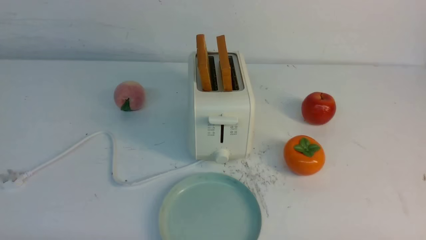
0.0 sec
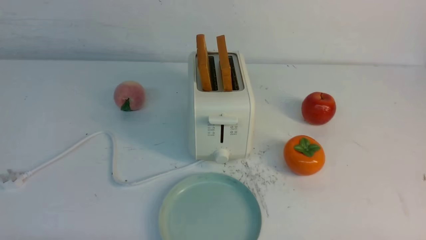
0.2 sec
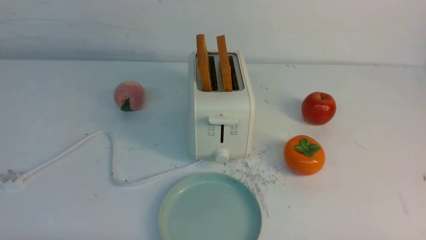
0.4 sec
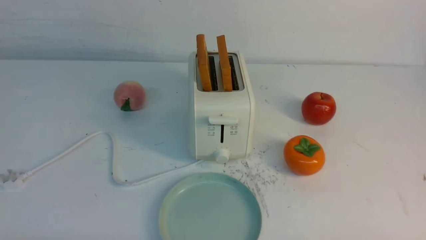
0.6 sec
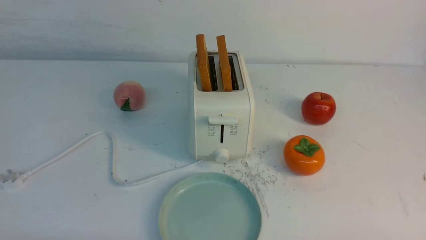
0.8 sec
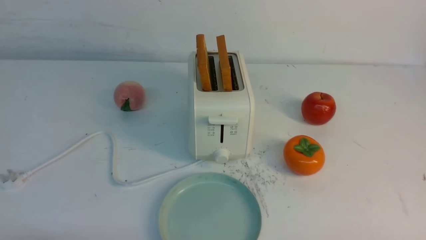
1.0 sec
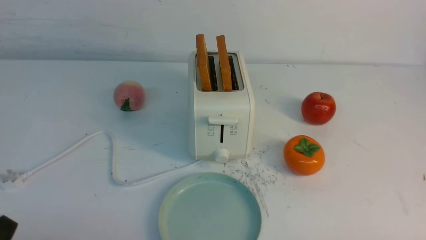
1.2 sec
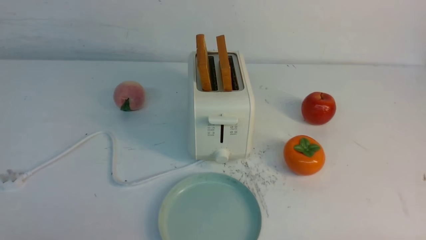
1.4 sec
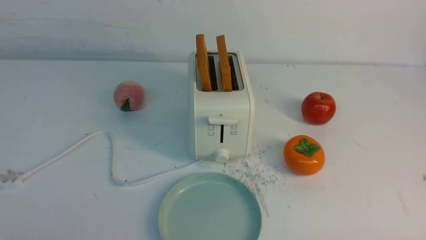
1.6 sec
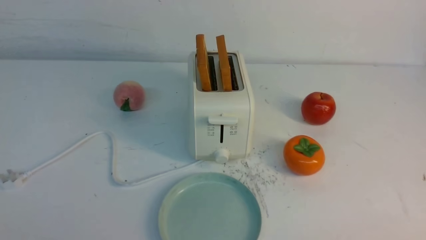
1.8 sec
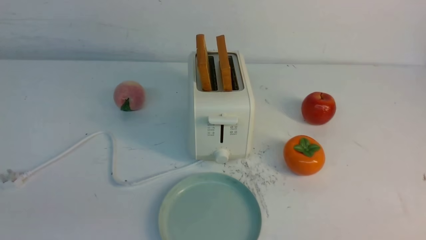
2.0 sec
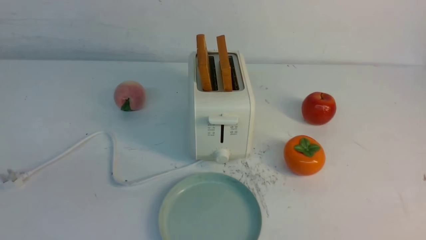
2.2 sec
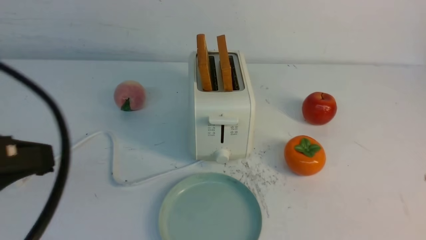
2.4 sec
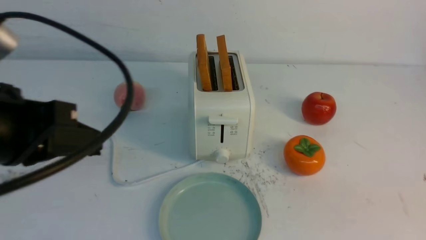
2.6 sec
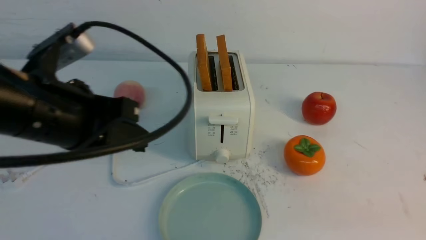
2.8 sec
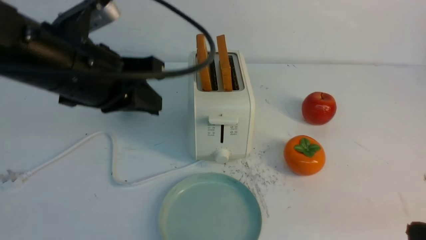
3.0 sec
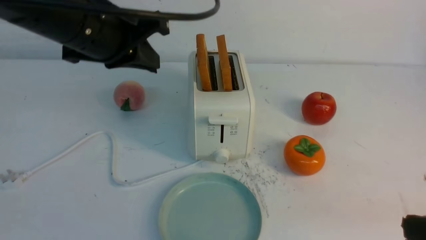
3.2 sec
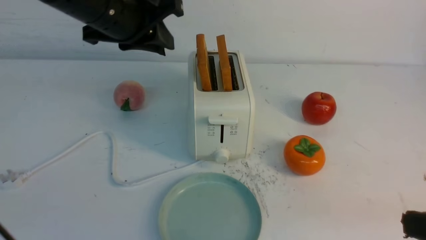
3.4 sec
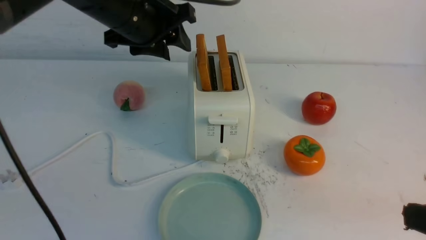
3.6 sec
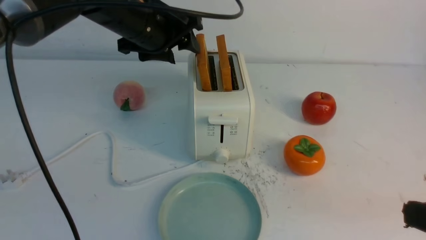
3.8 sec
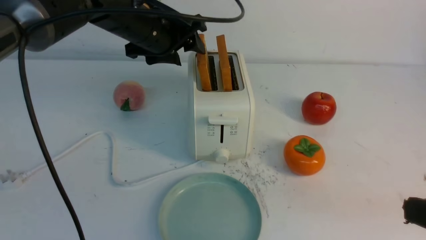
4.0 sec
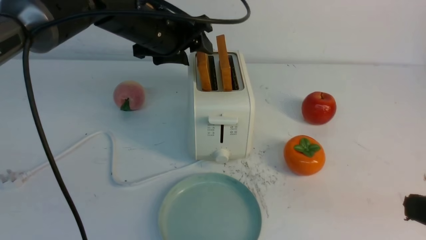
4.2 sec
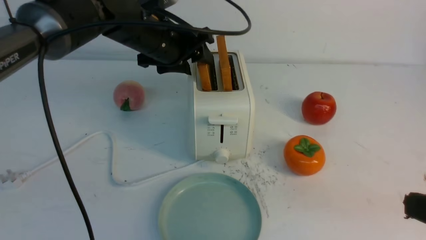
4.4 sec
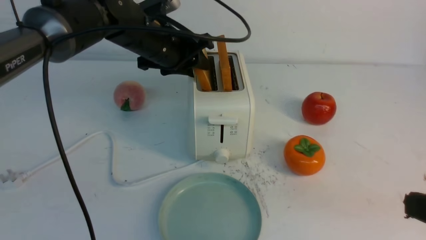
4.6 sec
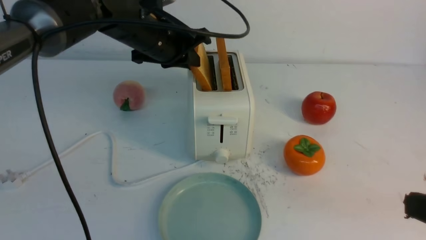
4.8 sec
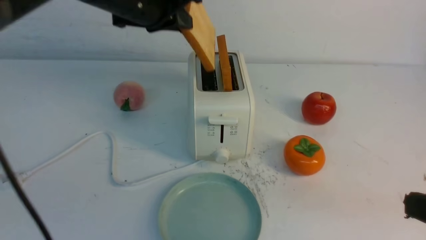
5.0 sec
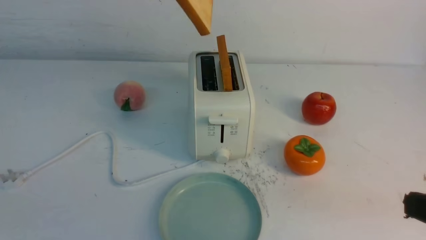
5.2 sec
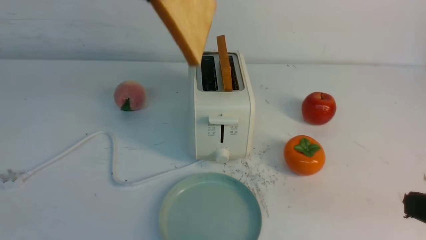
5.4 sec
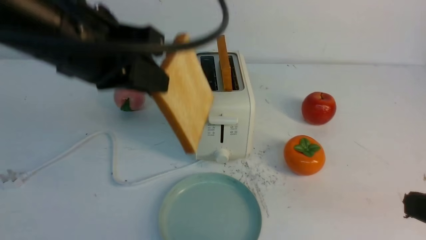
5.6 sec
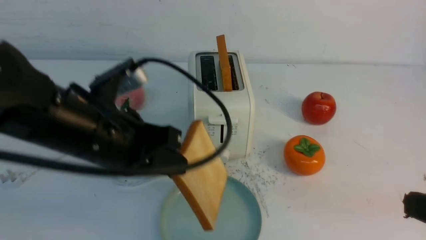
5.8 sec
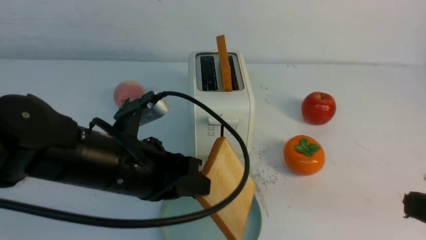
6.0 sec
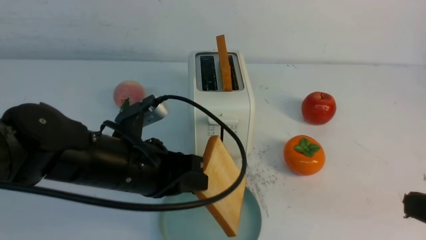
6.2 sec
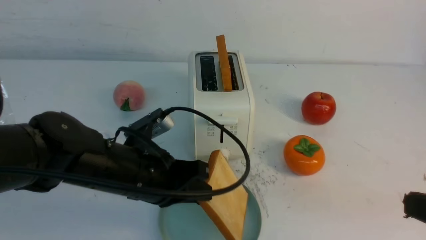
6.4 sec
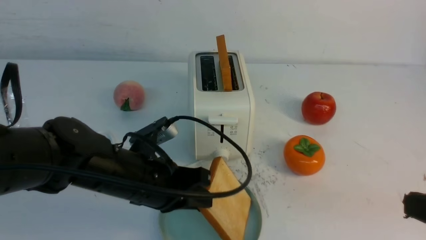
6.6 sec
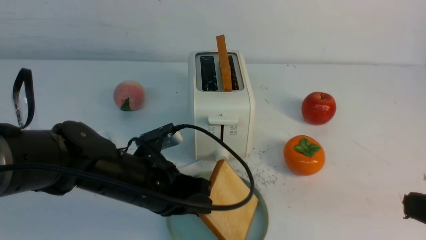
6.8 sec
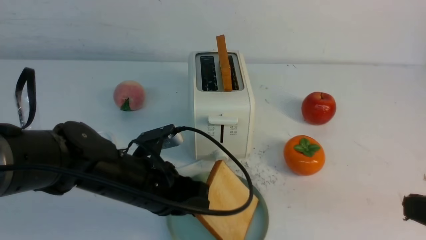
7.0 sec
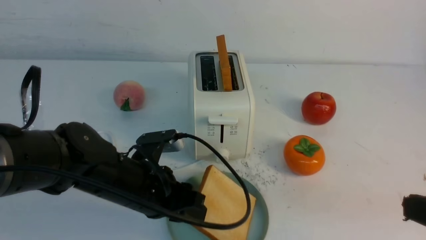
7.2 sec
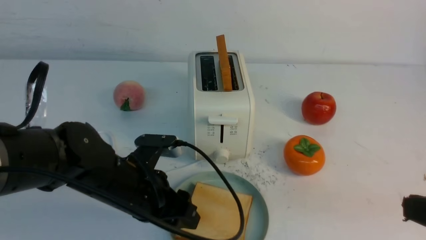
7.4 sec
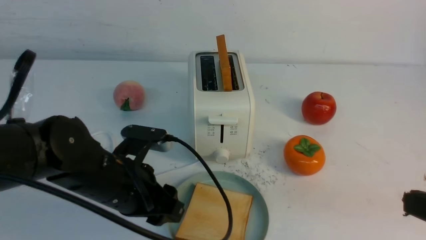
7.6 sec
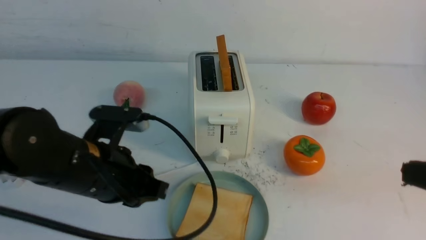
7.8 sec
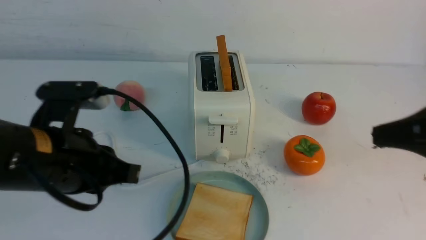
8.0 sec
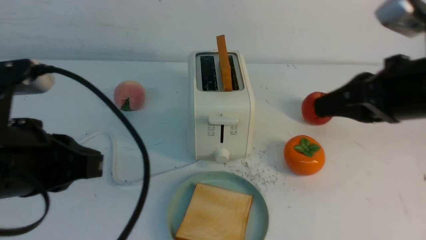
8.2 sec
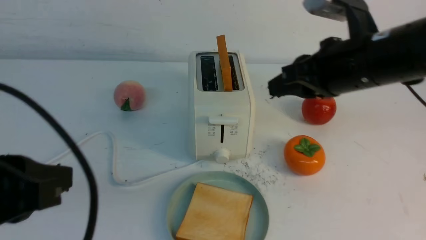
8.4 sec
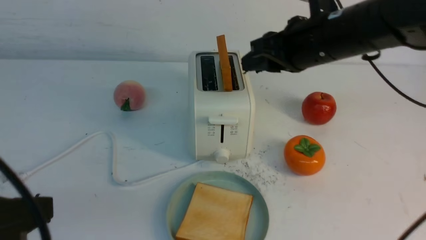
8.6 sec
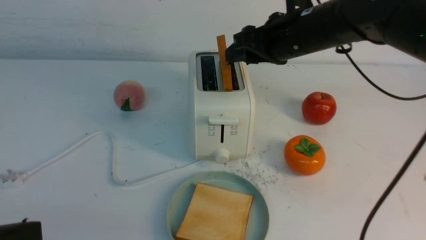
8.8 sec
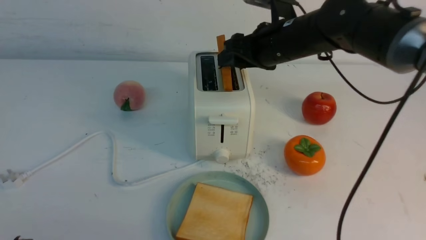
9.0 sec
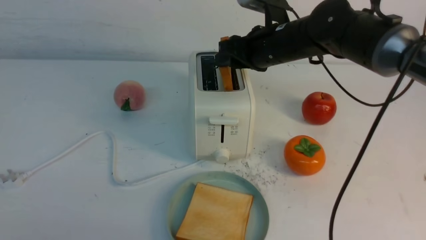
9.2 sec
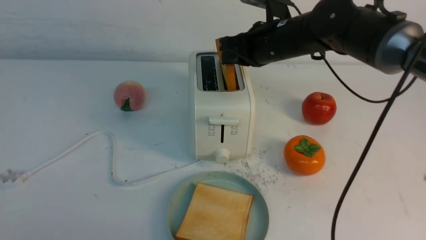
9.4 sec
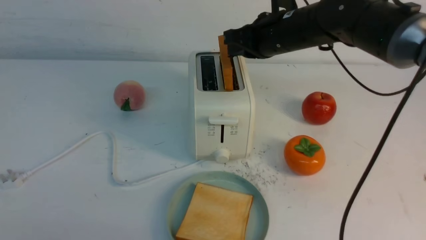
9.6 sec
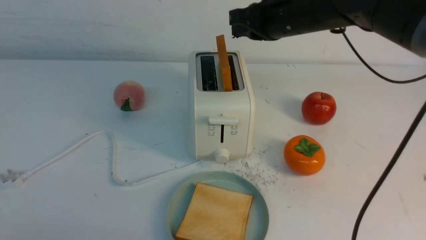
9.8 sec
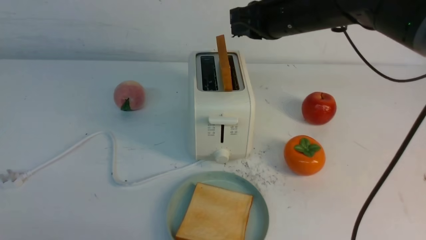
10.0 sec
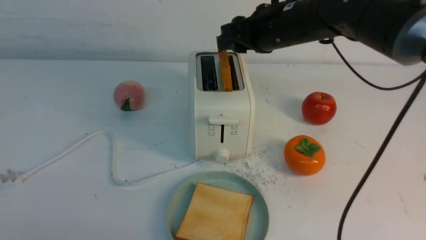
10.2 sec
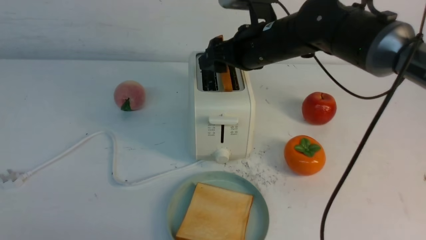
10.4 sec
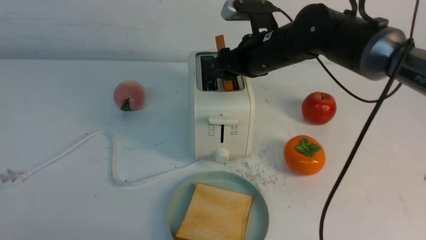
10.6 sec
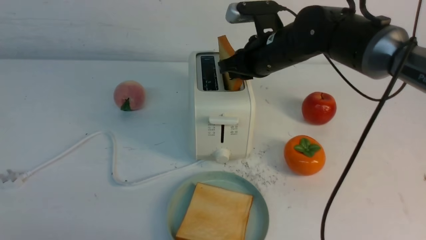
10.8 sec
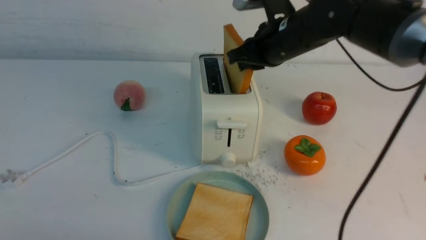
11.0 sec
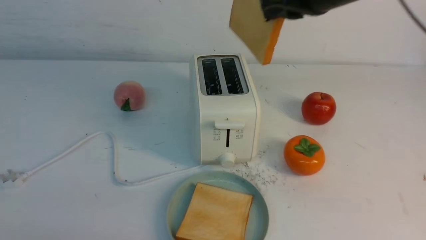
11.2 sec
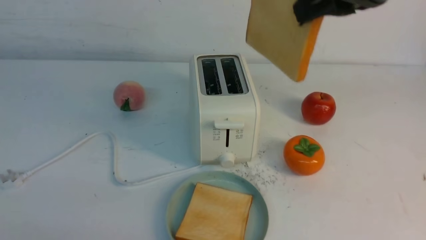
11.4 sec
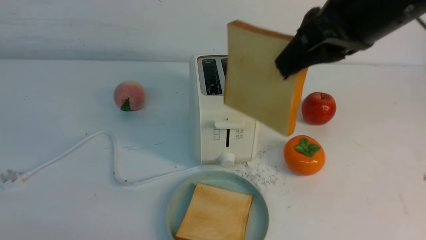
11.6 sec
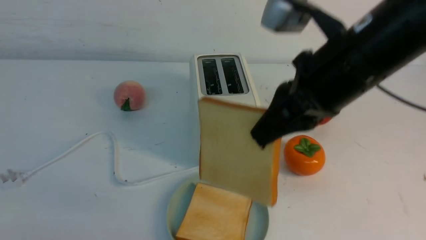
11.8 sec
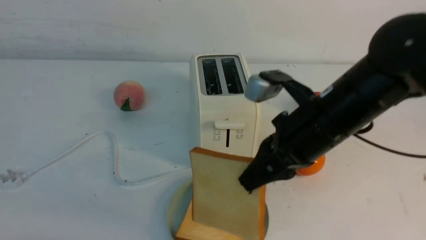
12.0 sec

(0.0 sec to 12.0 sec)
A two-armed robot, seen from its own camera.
Task of the whole recording: take toasted bread from bread machine on white table place on plate.
Step, 0.0 sec - 4.8 sec: use the left arm to take out a slice of bread.
Step, 5.2 sec - 7.6 sec: use the left arm to put a slice of bread into the empty plate.
Step, 7.8 sec - 11.2 sec: use the right arm to take out a slice of bread.
1.6 sec - 3.0 sec: The right gripper goes about 15 cm upward, and closes its fingers; the left gripper heads forward, upward and to the right, covering some 30 cm.
3.0 sec - 4.4 sec: The left gripper is displaced forward by roughly 15 cm, and opens.
4.4 sec - 6.0 sec: The left gripper moves backward, approximately 20 cm, and closes up.
6.0 sec - 7.6 sec: The left gripper opens its fingers.
7.6 sec - 9.0 sec: The right gripper moves forward and to the left, about 35 cm, and opens its fingers. The left gripper goes some 25 cm backward, to the left and upward, and closes its fingers.
9.0 sec - 10.4 sec: The right gripper closes, then opens again.
10.4 sec - 12.0 sec: The right gripper moves backward, about 15 cm, and closes up.

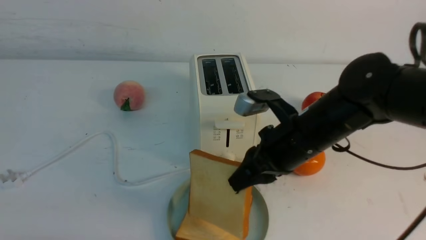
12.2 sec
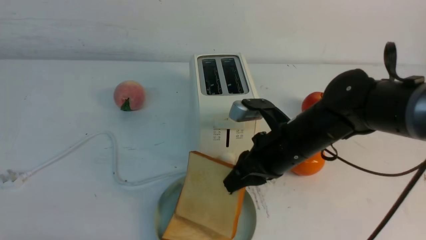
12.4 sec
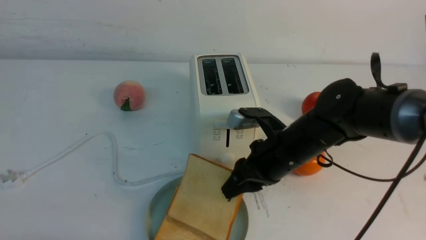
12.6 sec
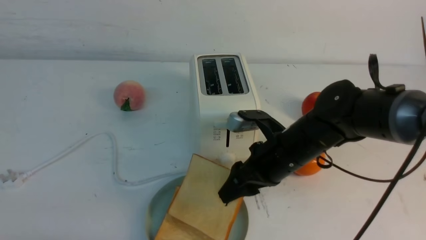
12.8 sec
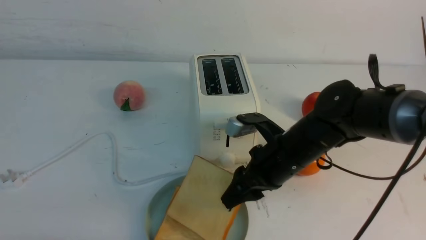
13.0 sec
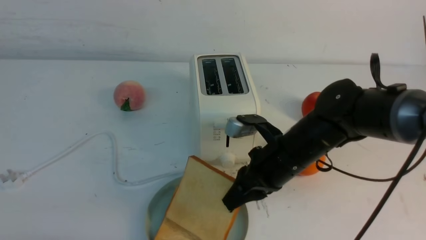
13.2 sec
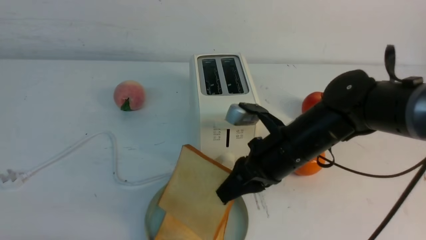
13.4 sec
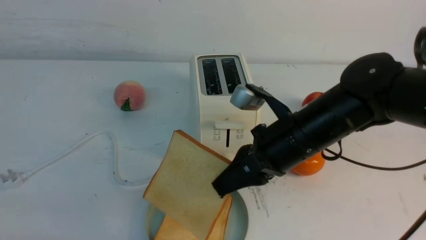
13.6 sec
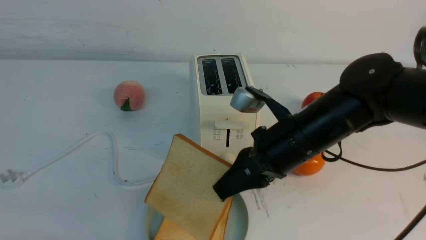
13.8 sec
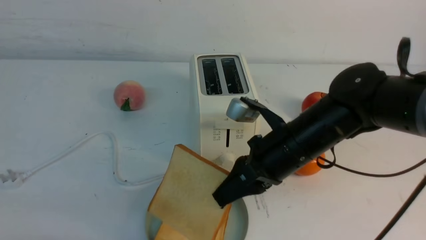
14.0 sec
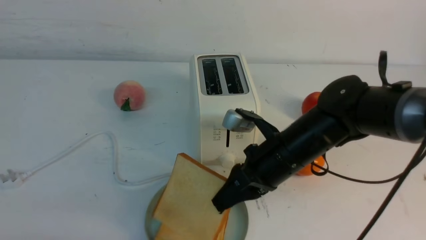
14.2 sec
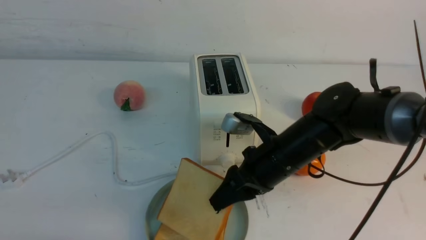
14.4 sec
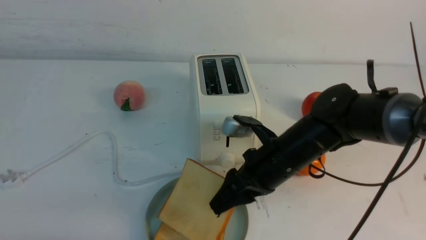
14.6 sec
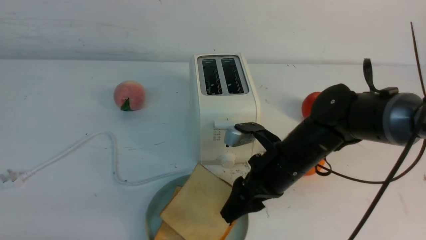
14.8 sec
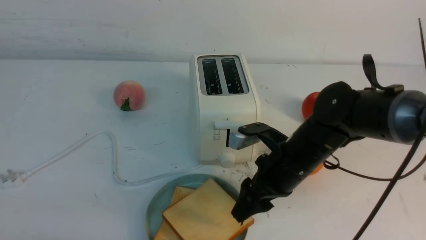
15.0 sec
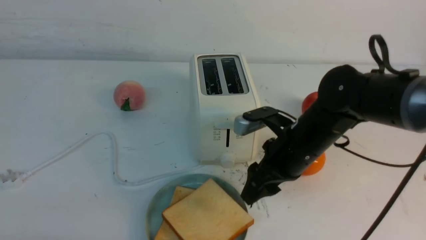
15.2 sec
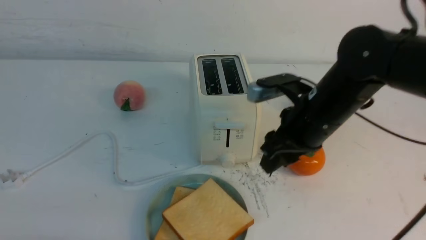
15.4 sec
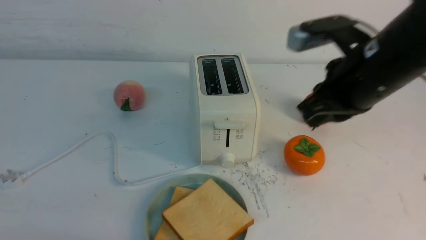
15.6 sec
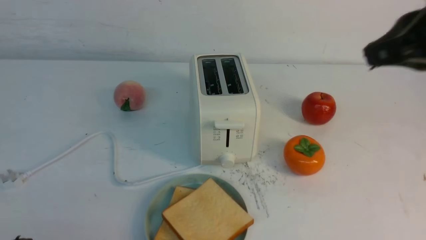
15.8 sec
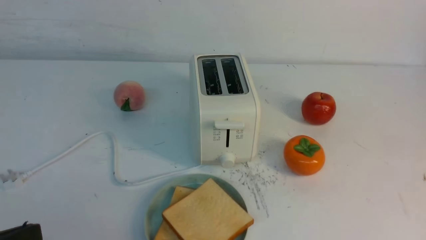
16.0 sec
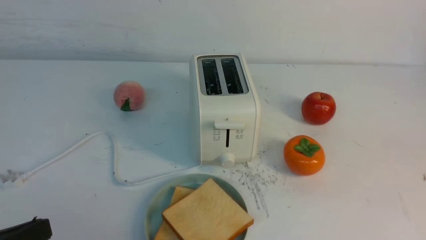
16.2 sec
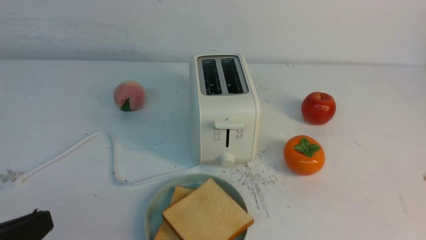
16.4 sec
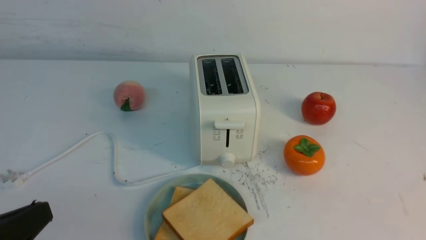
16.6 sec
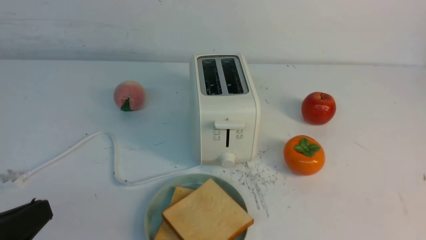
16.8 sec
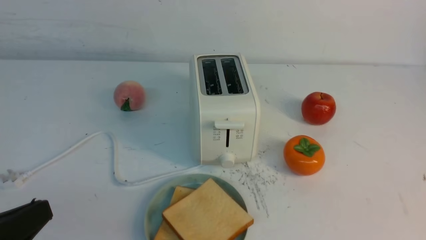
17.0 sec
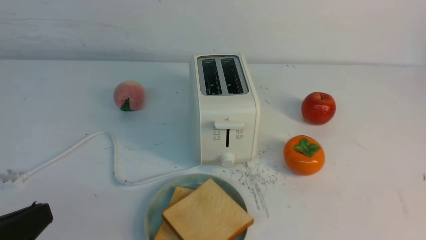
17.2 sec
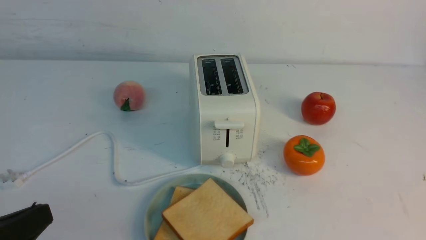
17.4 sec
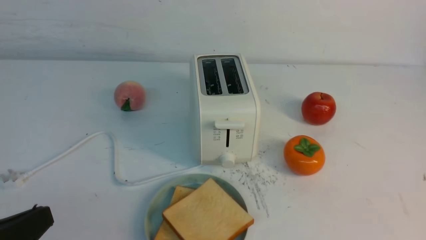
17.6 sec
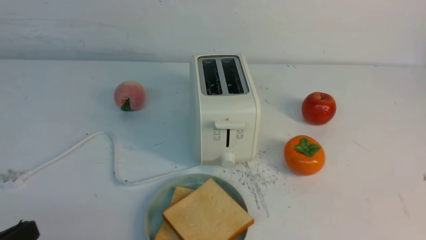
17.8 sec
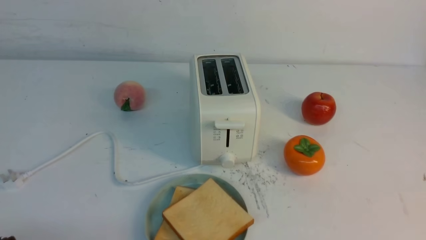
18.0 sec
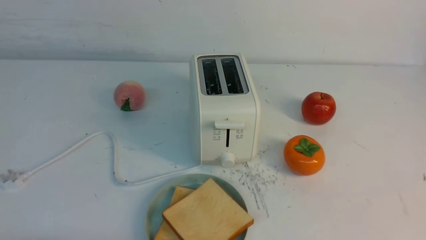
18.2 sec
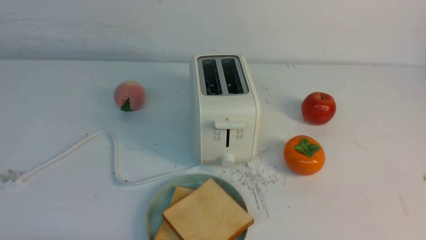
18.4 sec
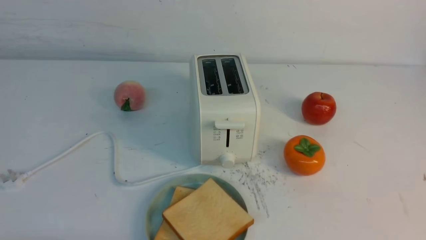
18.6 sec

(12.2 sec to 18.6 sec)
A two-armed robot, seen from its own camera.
Task of the whole recording: take toasted bread from bread machine on white table place on plate.
Step, 12.2 sec - 15.0 sec: use the right arm to put a slice of bread into the plate.
12.2 sec - 13.8 sec: The right gripper opens, then closes once more.
13.8 sec - 15.4 sec: The right gripper changes place by roughly 5 cm, and opens, then closes once more.
15.4 sec - 17.0 sec: The right gripper goes approximately 35 cm backward and to the right, and closes its fingers.
17.0 sec - 18.6 sec: The left gripper is displaced downward by about 10 cm.
